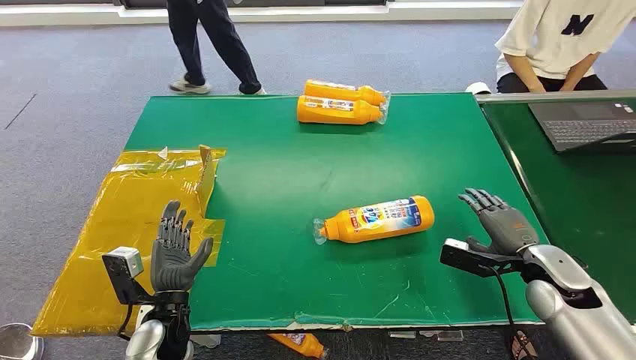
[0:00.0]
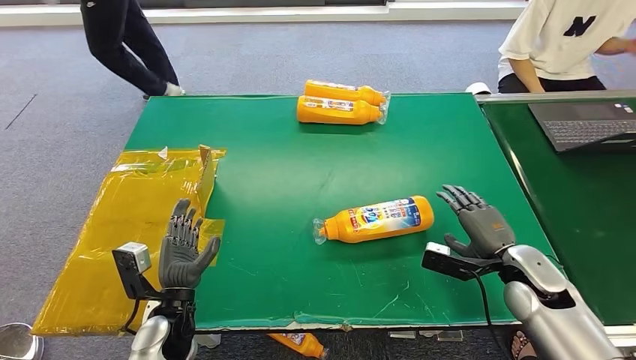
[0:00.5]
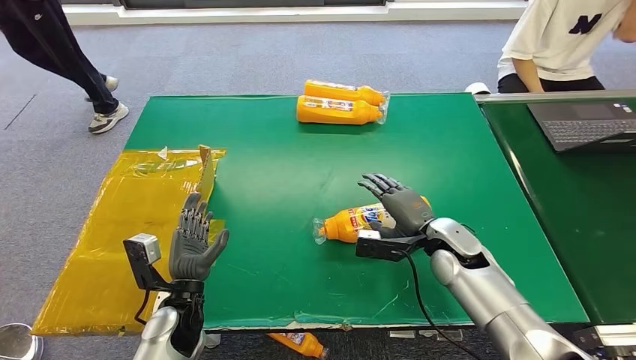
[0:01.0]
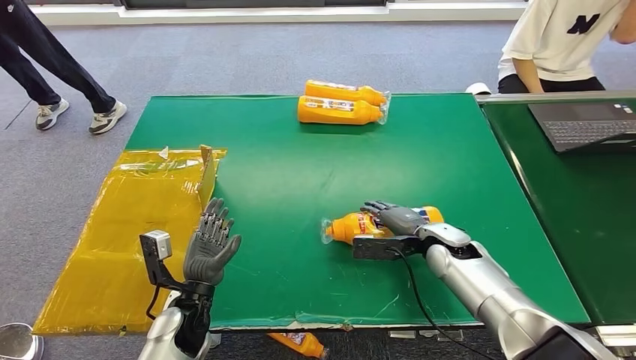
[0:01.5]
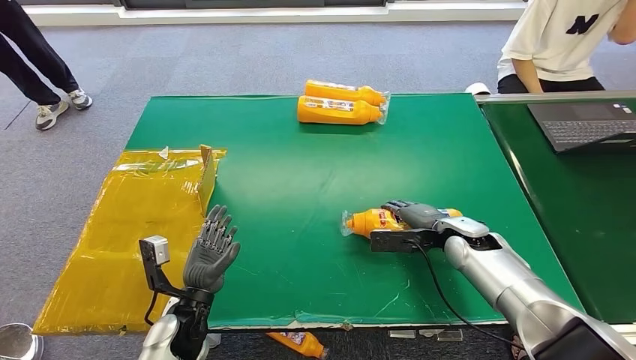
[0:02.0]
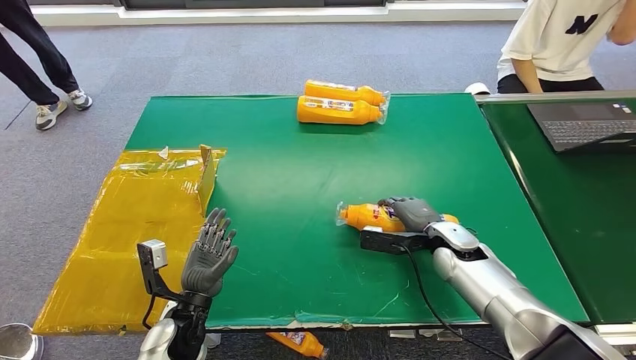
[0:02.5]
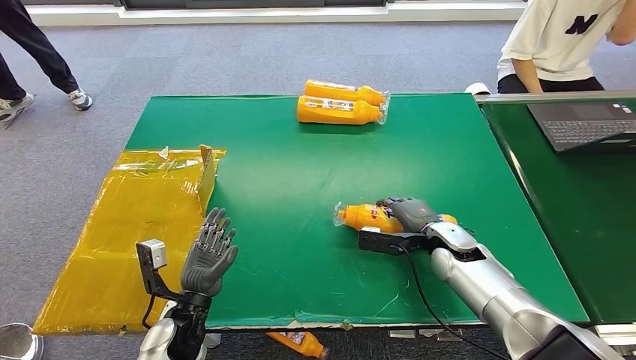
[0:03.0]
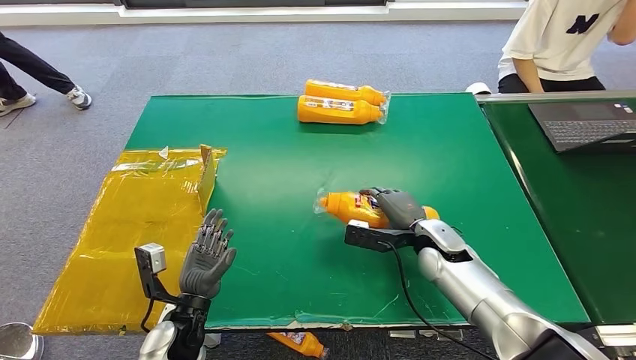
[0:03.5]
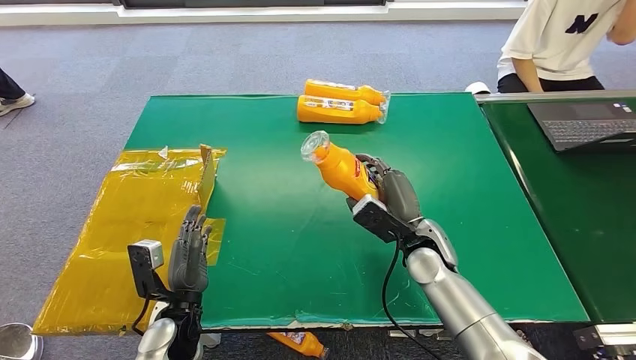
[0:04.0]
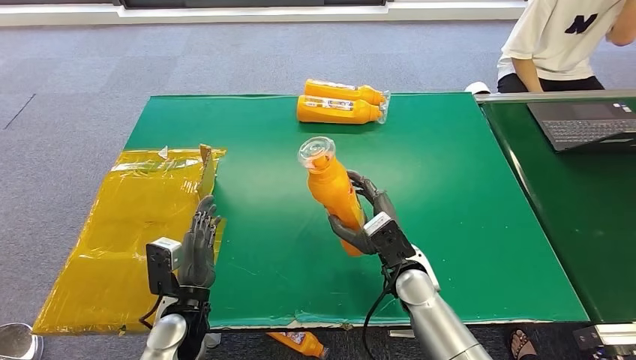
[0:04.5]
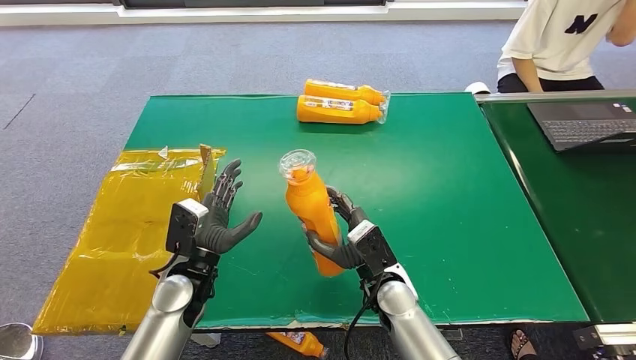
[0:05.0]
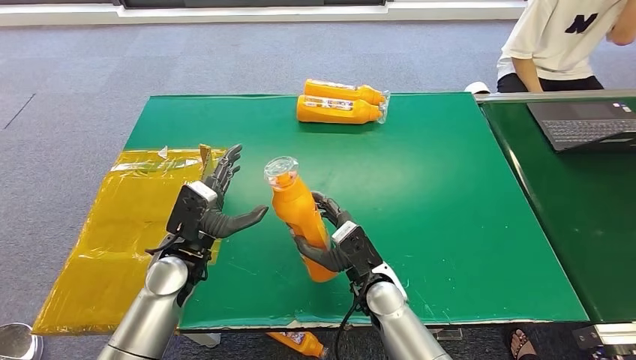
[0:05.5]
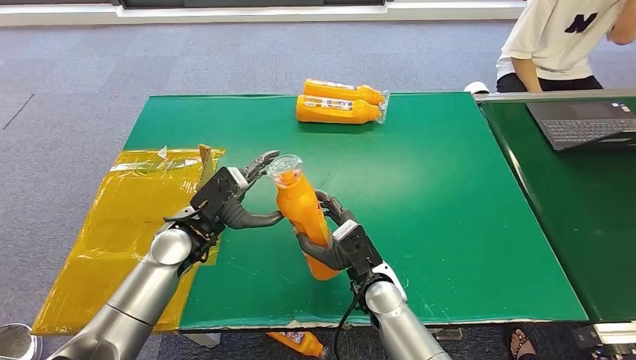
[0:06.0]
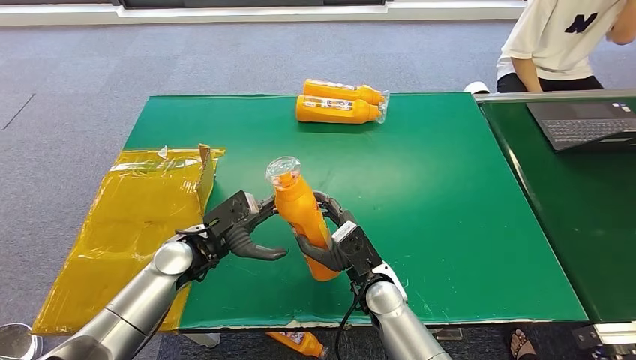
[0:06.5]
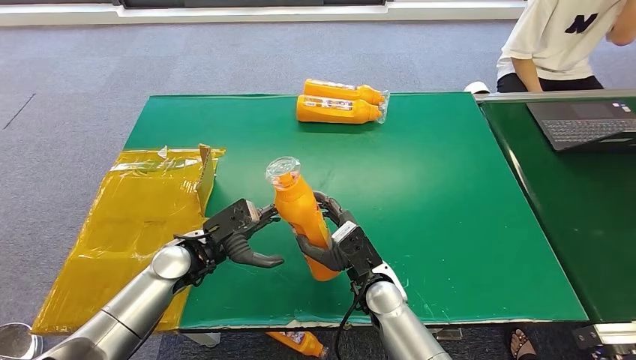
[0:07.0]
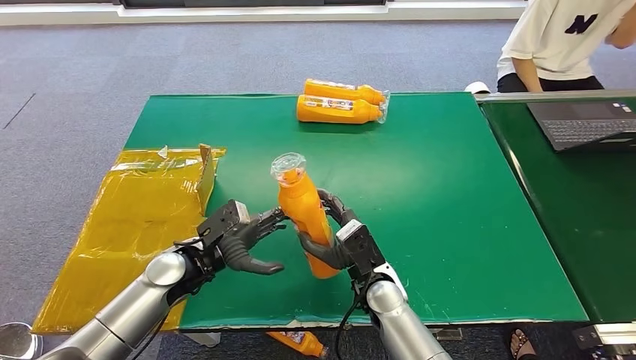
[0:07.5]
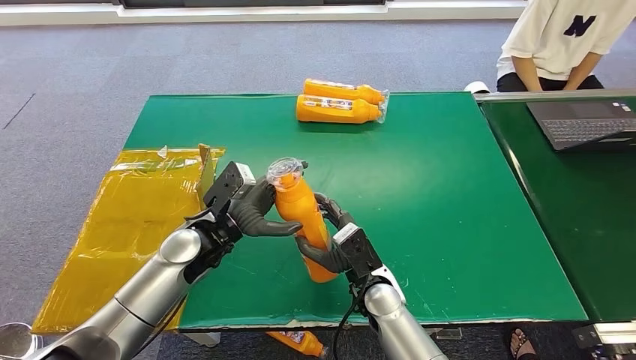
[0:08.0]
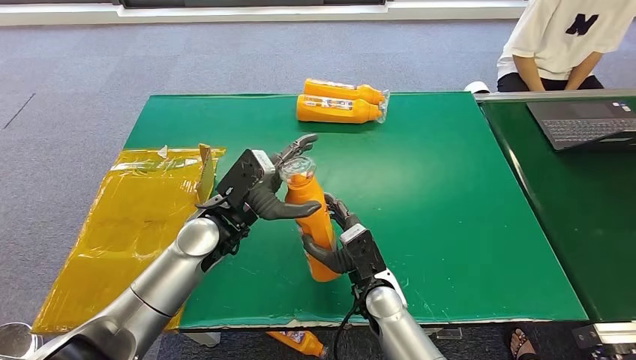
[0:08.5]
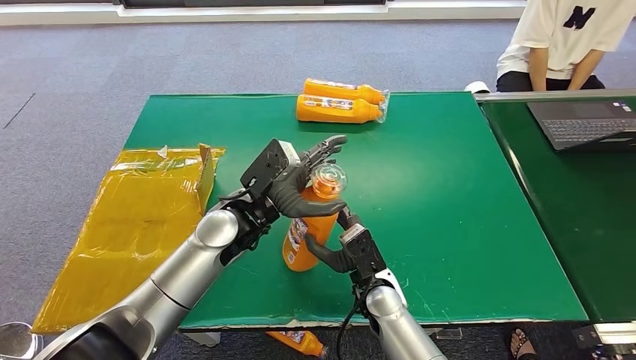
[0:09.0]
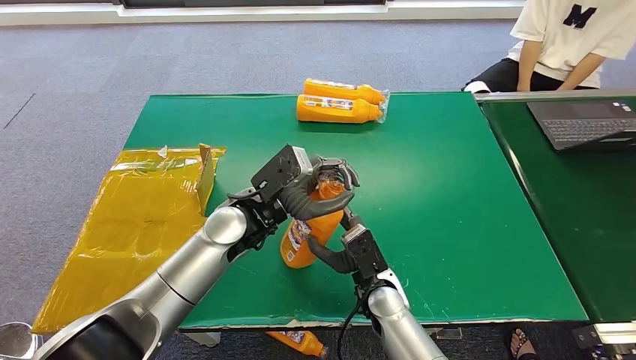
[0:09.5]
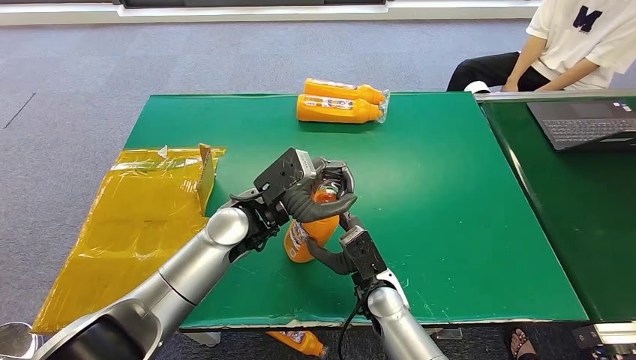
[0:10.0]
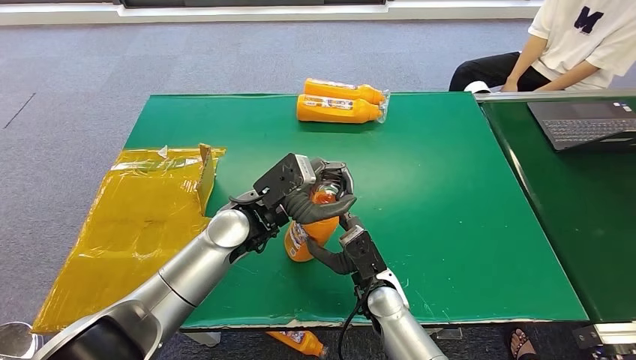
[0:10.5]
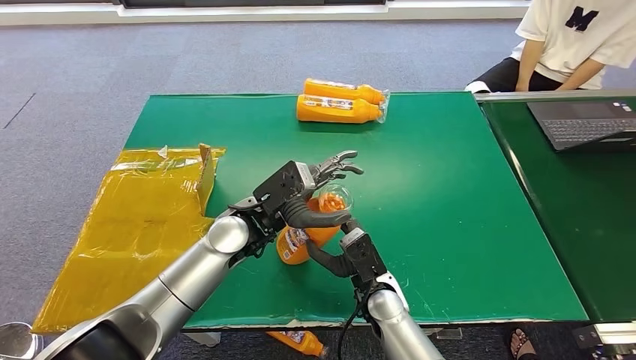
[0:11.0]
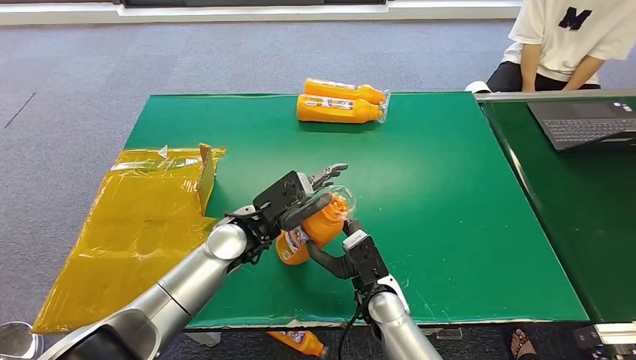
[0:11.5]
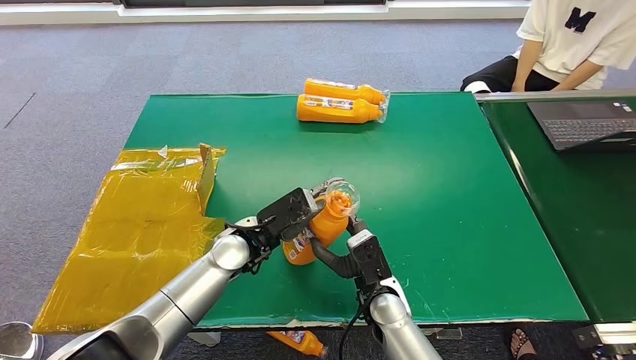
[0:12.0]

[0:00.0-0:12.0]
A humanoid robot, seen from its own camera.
Step, 0:00.0 to 0:04.0: Pick up the bottle from the table.
0:02.0 to 0:04.0: The right hand moves to the left, roughly 10 cm.
0:04.0 to 0:06.0: The right hand goes some 10 cm to the left and backward. The left hand goes roughly 15 cm forward and upward.
0:08.0 to 0:10.0: The left hand is displaced to the right by about 10 cm.
0:10.0 to 0:12.0: The left hand shifts roughly 5 cm downward.

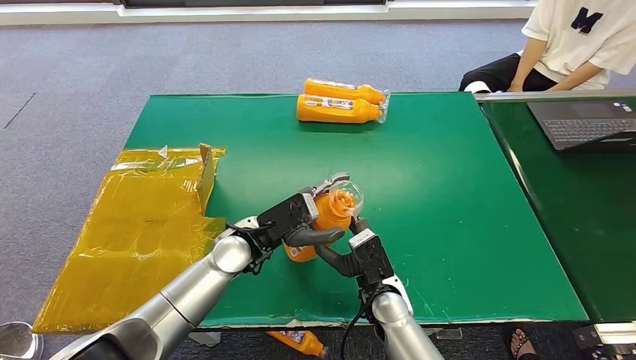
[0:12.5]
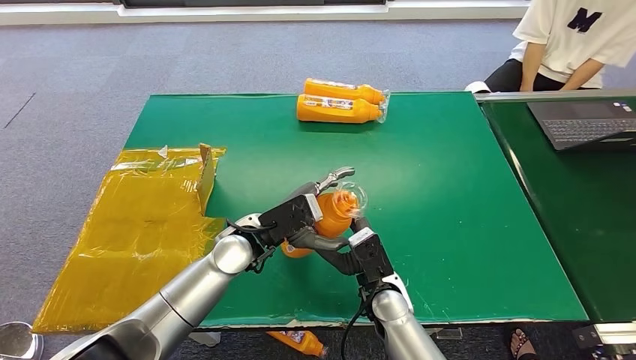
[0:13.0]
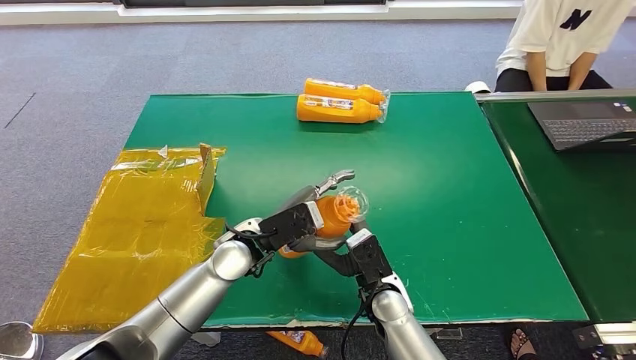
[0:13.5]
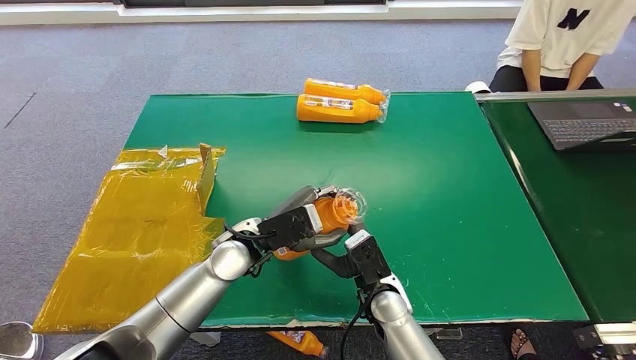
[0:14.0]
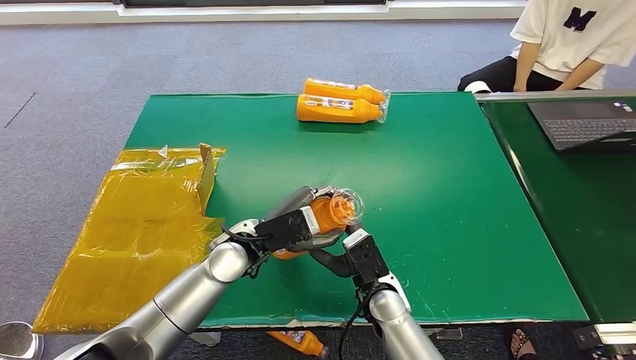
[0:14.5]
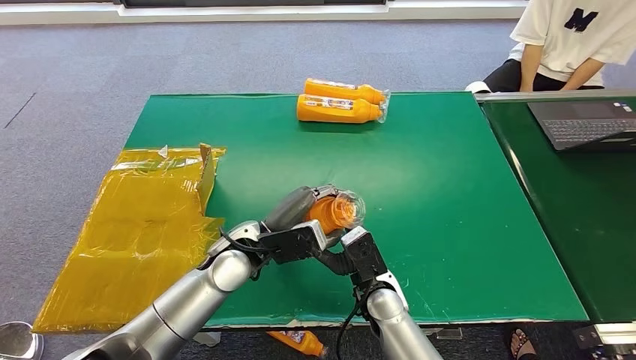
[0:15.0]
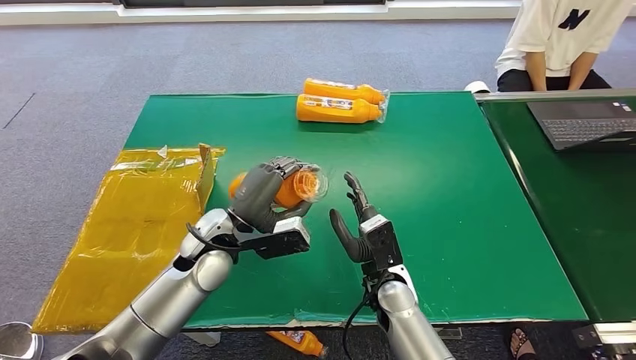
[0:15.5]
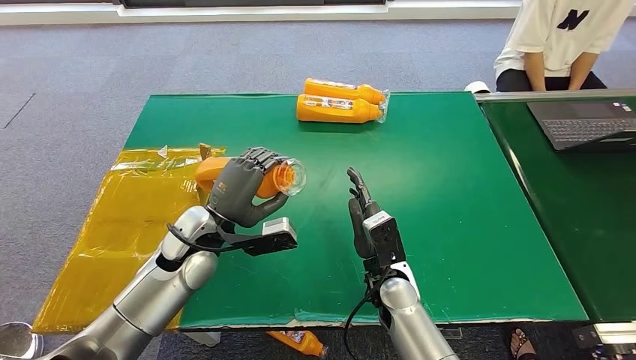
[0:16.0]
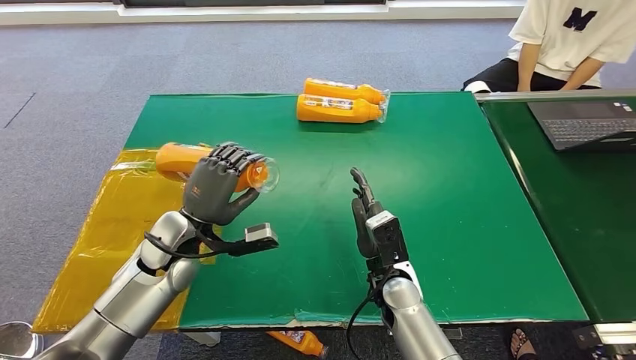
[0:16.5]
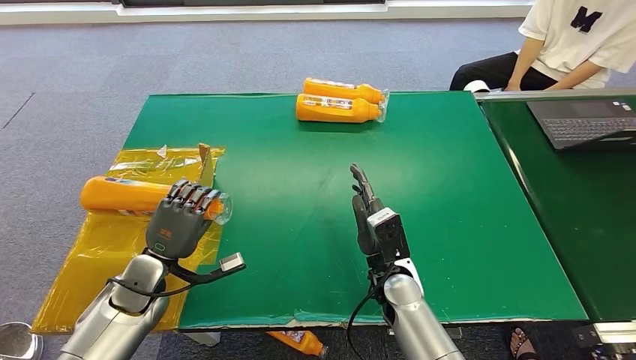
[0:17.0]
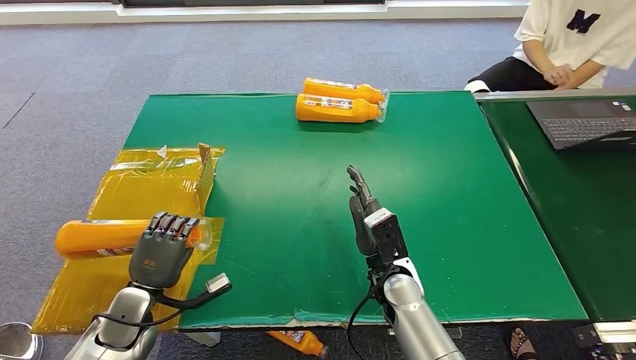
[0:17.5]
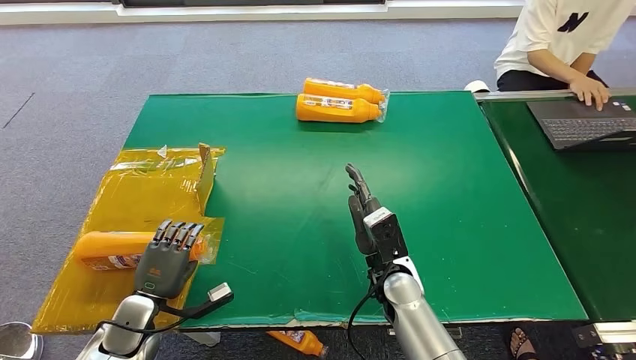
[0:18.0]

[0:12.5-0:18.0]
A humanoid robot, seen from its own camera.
Step, 0:12.5 to 0:18.0: Turn the bottle to the front side.
0:12.5 to 0:14.5: The hands move only a little.
0:14.5 to 0:16.0: The left hand goes about 5 cm to the left.
0:16.0 to 0:18.0: The left hand travels downward, to the left and backward by about 25 cm.

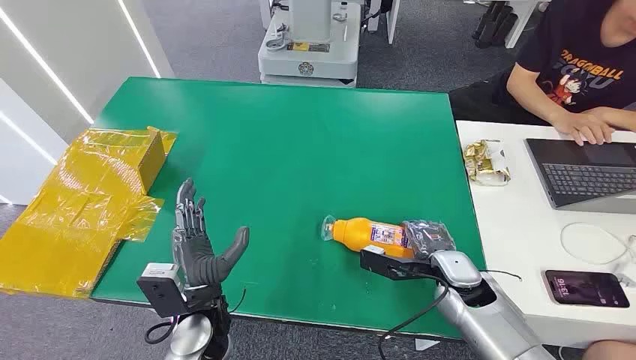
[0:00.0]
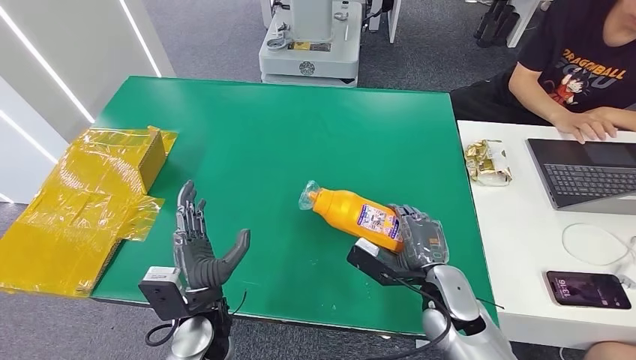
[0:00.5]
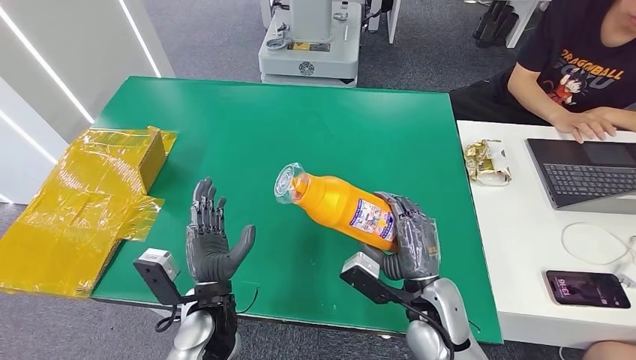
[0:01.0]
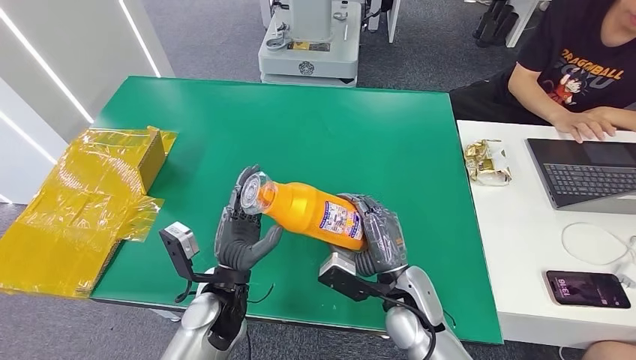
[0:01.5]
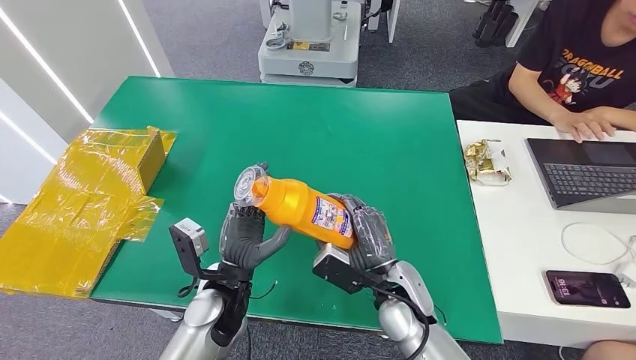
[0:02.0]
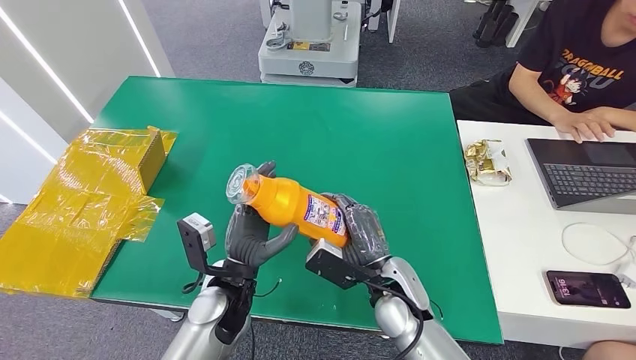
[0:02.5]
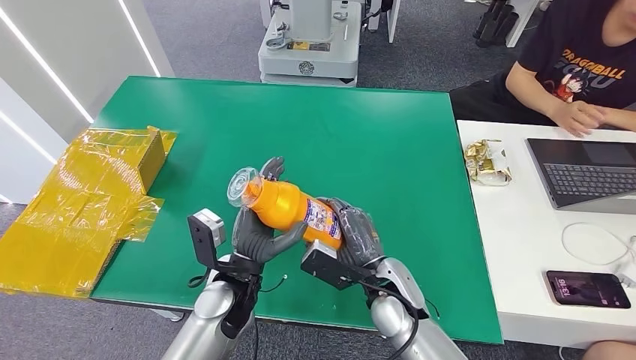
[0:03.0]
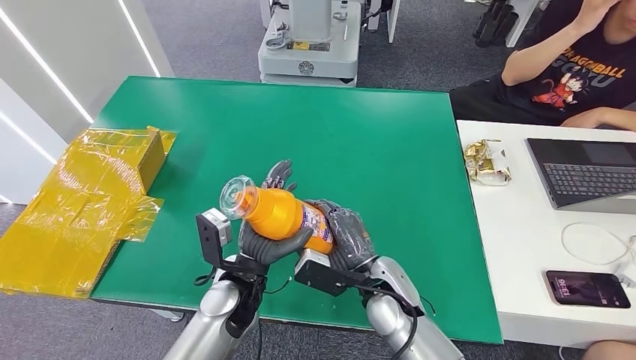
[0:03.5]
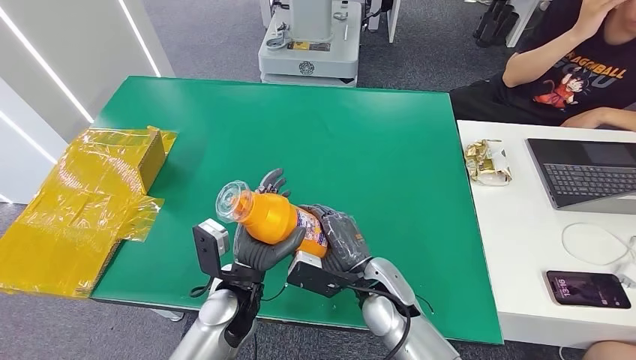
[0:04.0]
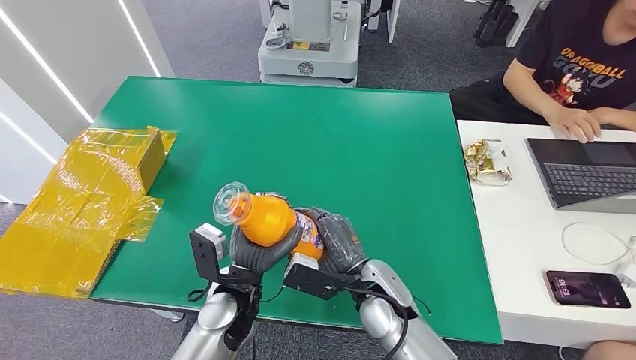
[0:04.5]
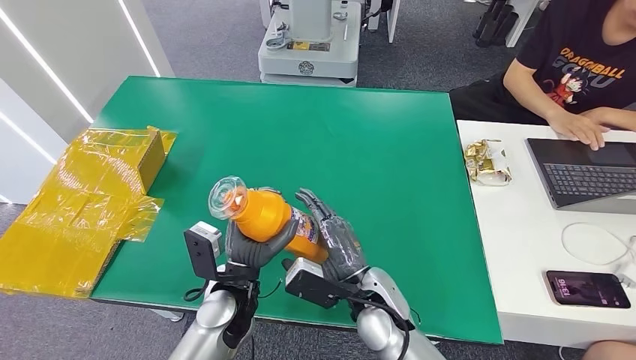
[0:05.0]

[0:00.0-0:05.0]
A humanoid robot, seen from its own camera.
Step, 0:00.0 to 0:02.0: Pick up the bottle from the table.
0:02.5 to 0:05.0: The hands move only a little.
